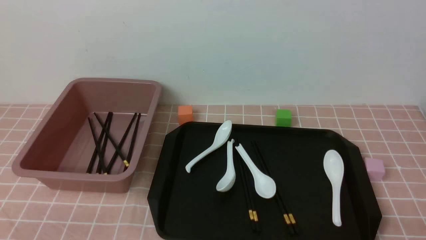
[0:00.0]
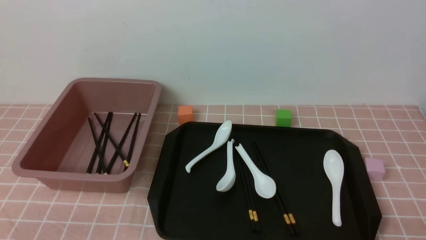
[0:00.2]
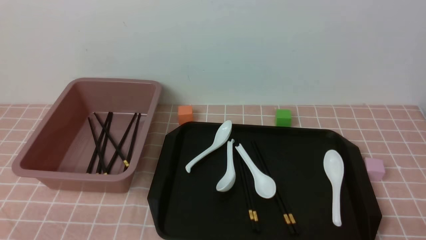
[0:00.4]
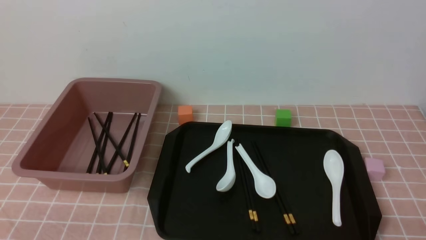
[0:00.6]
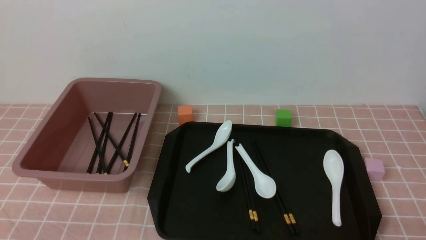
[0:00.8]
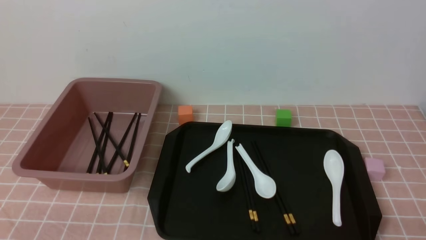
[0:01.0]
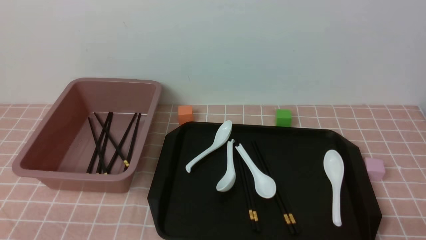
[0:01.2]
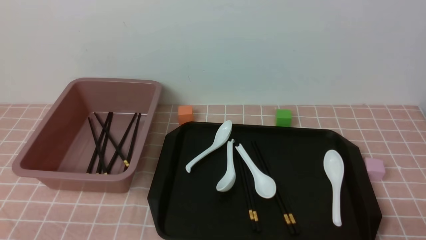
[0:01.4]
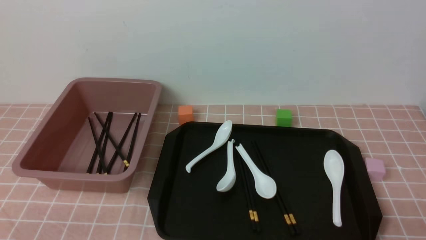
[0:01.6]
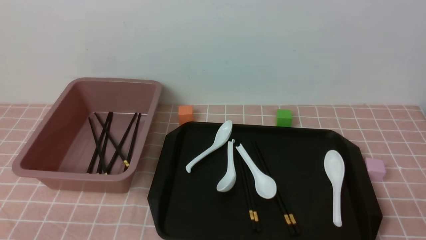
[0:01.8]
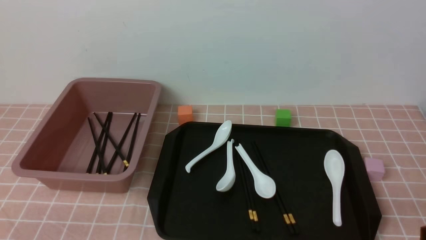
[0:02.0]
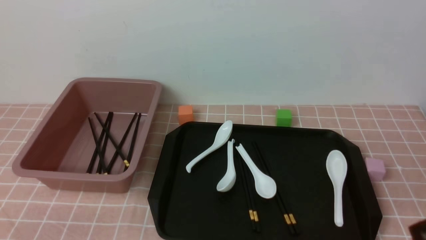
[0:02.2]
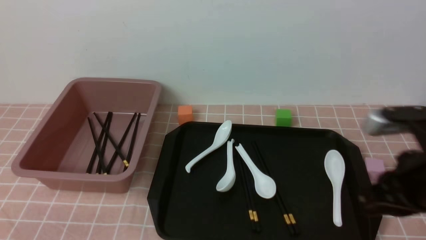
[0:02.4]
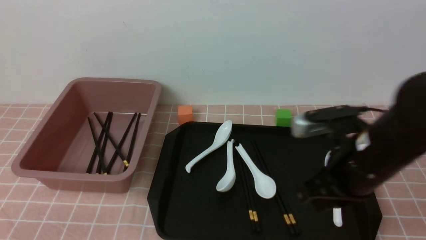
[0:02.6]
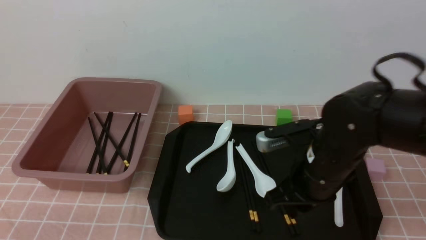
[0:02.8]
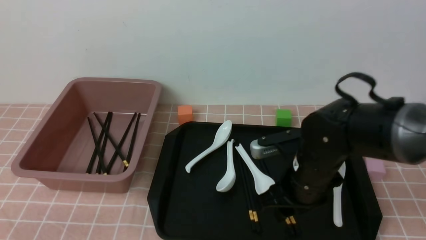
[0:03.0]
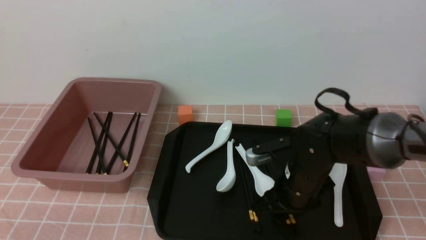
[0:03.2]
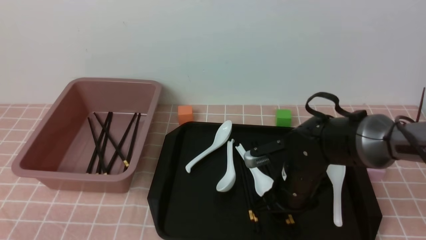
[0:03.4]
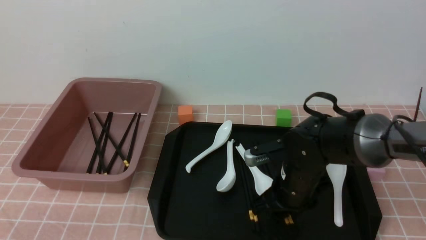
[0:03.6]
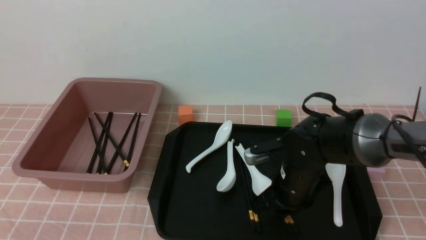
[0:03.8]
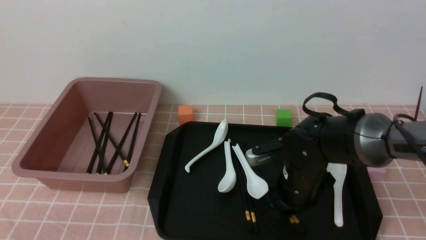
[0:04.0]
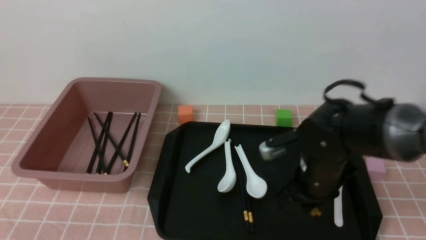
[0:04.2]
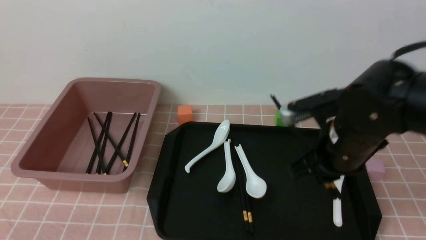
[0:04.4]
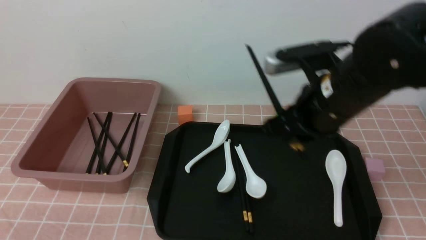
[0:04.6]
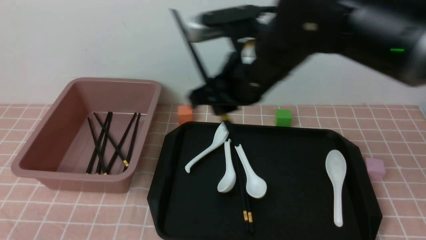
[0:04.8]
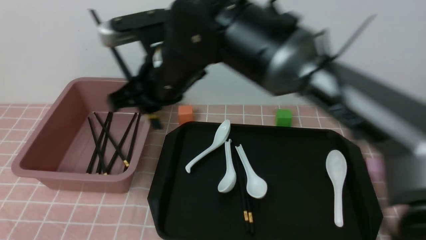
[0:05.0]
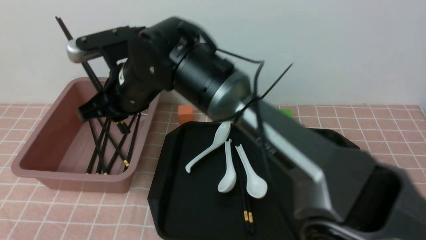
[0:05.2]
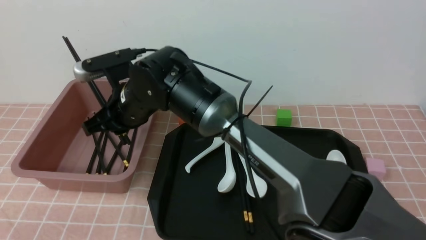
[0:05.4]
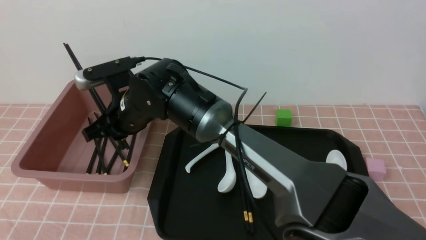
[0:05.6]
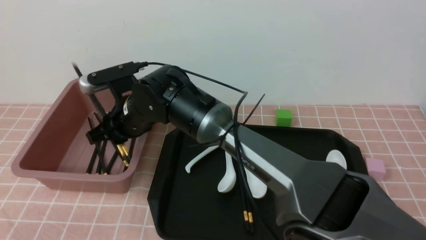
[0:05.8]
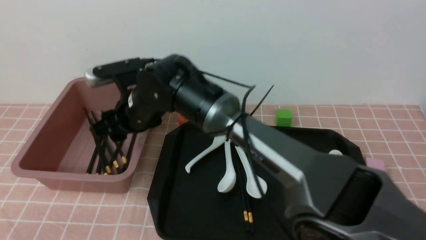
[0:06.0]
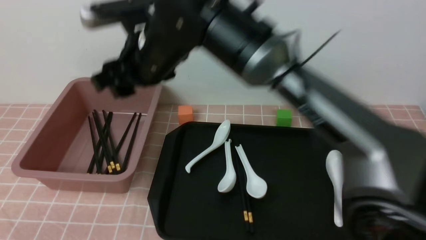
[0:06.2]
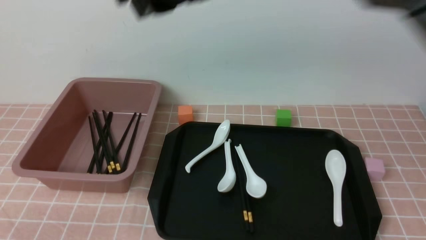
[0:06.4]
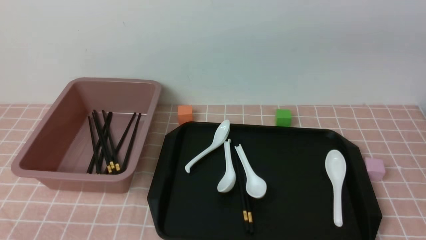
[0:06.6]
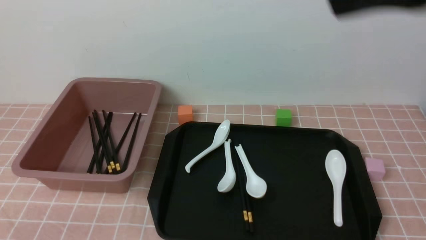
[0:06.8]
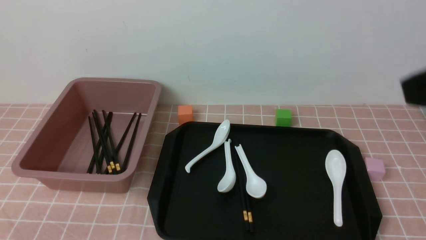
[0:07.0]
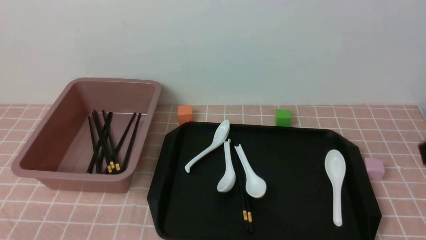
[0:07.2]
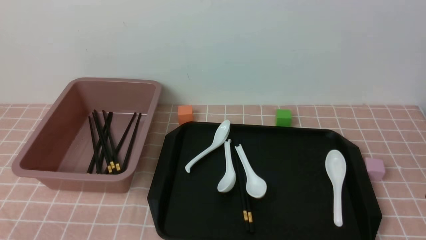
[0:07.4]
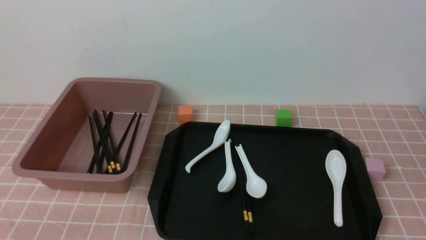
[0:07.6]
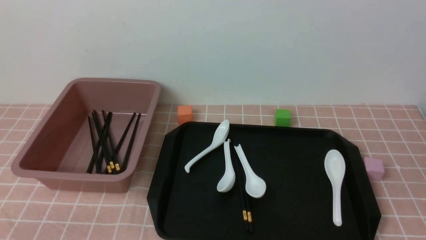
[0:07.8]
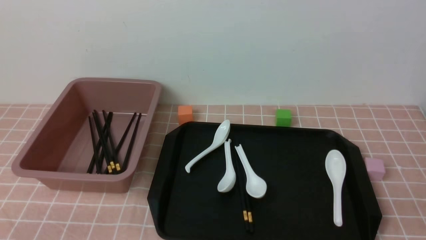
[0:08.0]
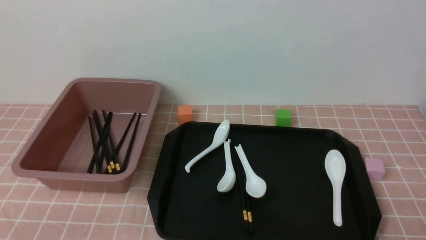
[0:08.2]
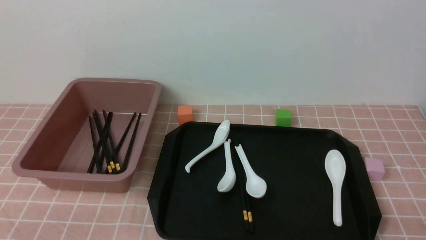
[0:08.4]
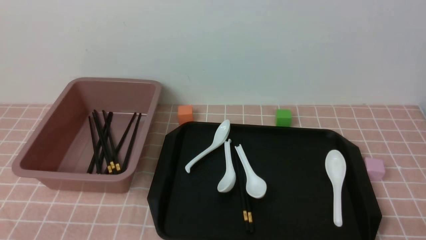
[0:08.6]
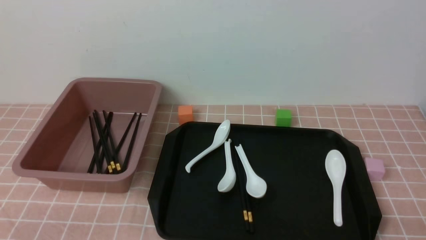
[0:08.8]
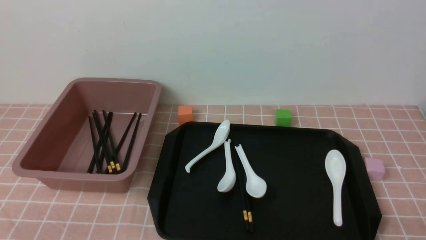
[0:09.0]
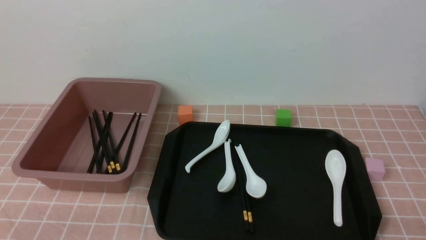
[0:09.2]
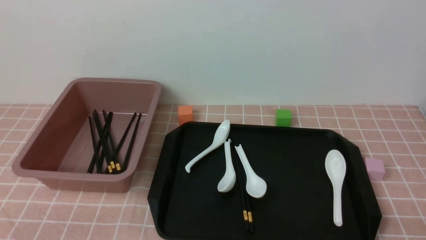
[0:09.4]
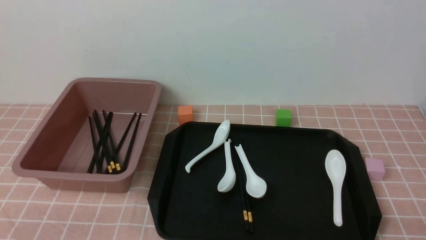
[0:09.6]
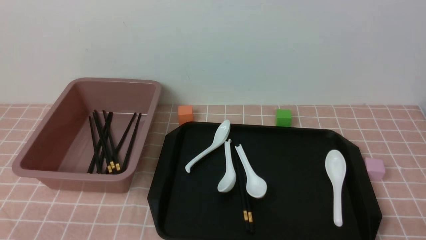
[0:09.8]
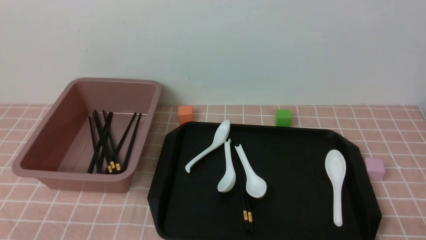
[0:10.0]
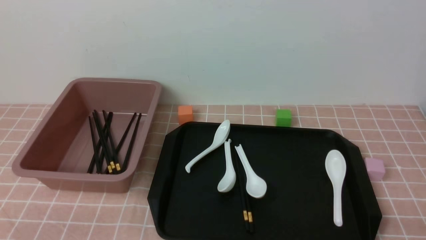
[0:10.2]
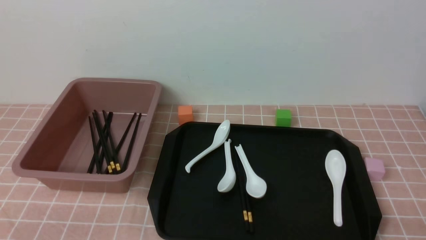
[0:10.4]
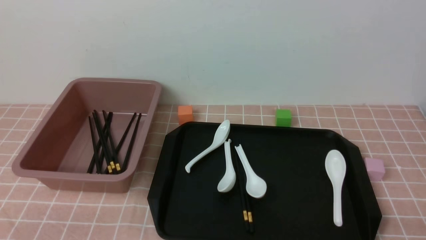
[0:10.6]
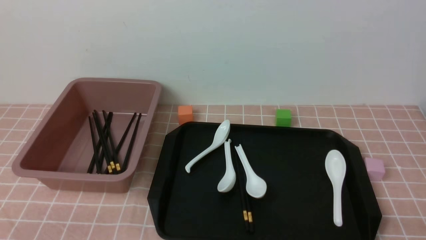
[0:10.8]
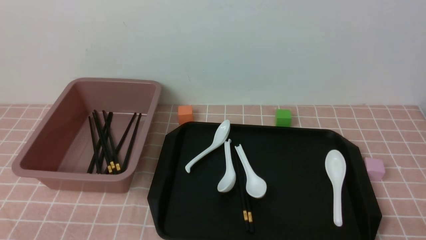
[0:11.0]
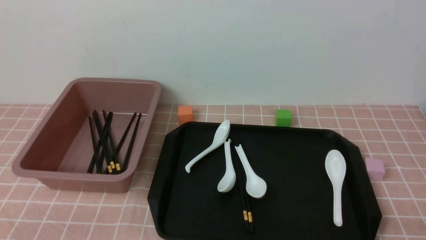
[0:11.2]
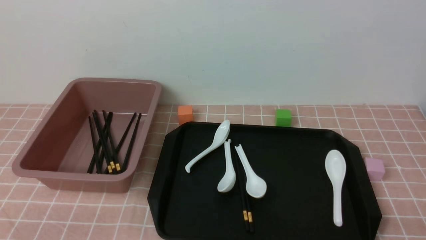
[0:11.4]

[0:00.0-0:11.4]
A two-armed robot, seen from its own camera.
Step, 0:00.0 to 0:04.2: use the right arm to grab a pair of chopsticks.
Step, 0:04.6 to 0:06.2: use the right arm to put the chopsticks into the lunch box.
0:01.4 to 0:02.8: The right gripper shifts about 25 cm forward and to the left.
0:02.8 to 0:04.2: The right gripper moves approximately 10 cm downward and comes back, and opens, then closes once more.
0:04.2 to 0:05.6: The right gripper shifts about 25 cm to the left.
0:05.6 to 0:07.2: The right gripper moves to the right, backward and upward, approximately 50 cm, and closes its fingers.
0:08.6 to 0:11.4: The two grippers keep their place.

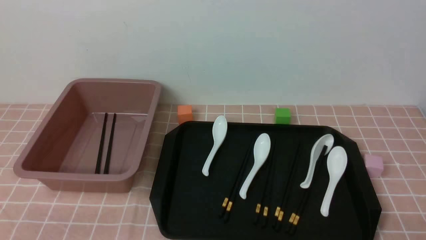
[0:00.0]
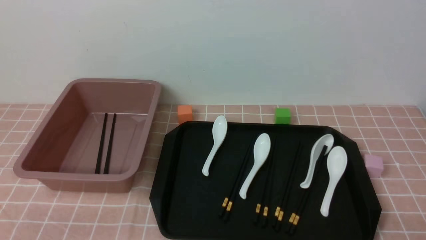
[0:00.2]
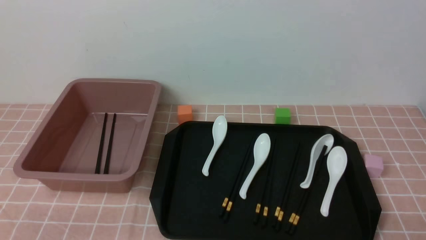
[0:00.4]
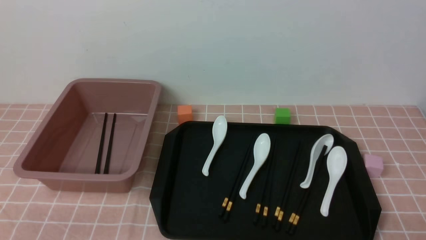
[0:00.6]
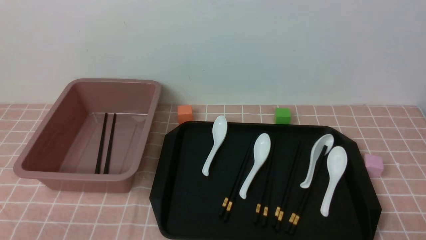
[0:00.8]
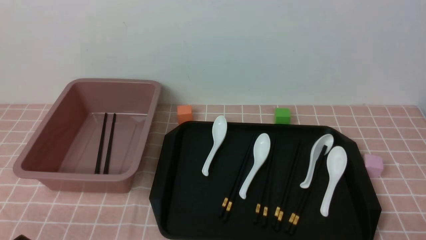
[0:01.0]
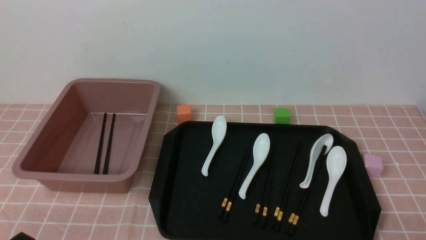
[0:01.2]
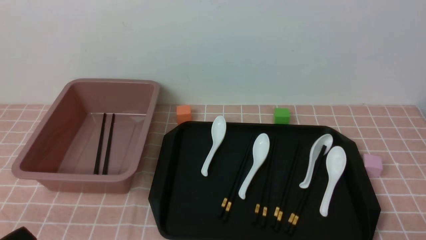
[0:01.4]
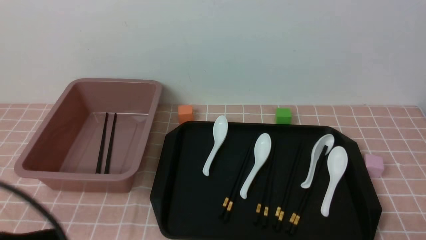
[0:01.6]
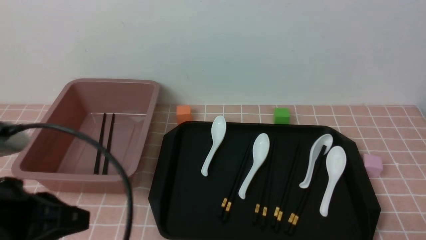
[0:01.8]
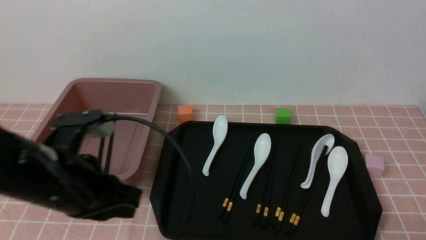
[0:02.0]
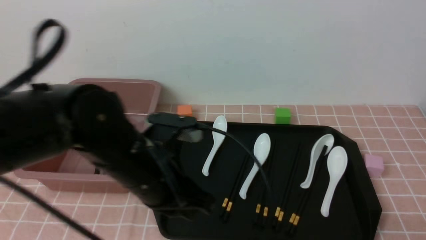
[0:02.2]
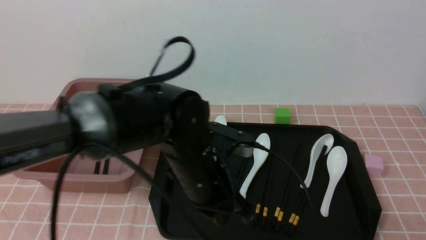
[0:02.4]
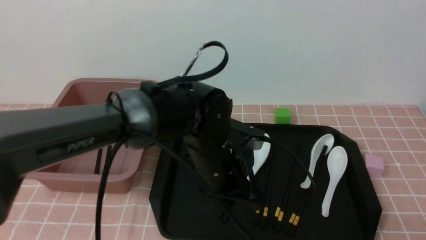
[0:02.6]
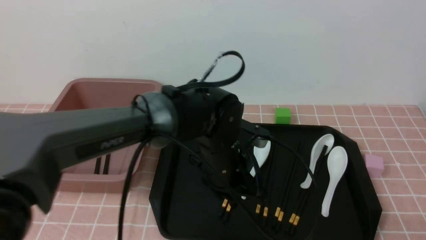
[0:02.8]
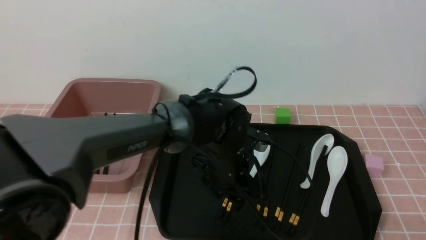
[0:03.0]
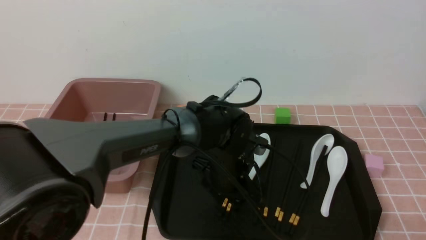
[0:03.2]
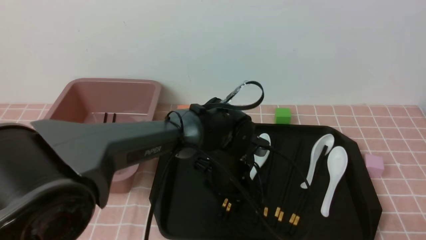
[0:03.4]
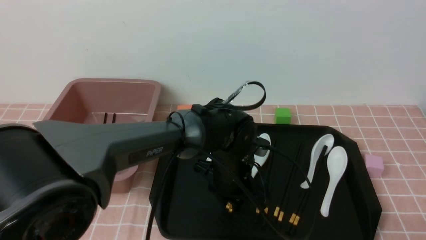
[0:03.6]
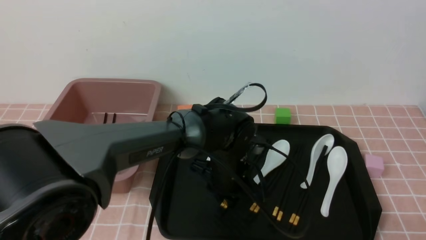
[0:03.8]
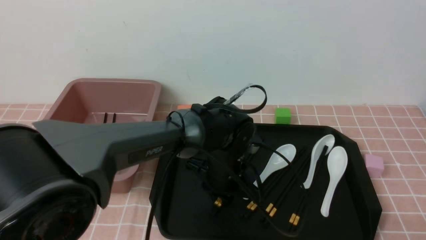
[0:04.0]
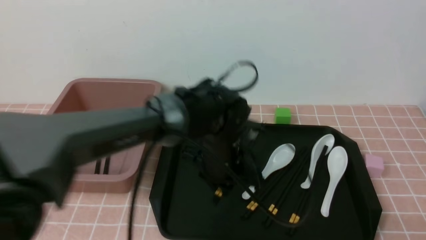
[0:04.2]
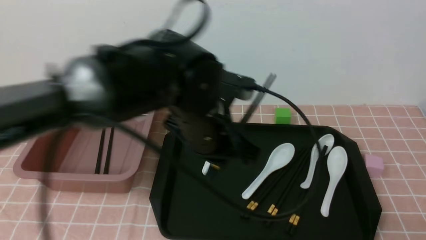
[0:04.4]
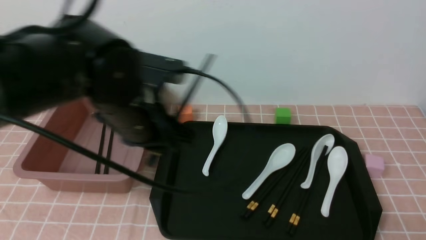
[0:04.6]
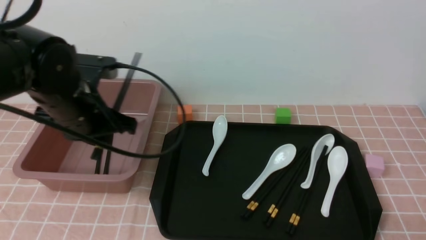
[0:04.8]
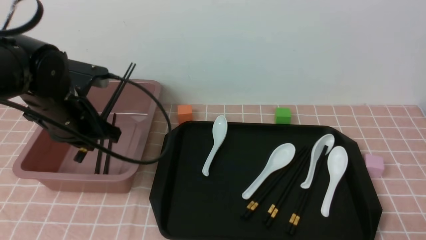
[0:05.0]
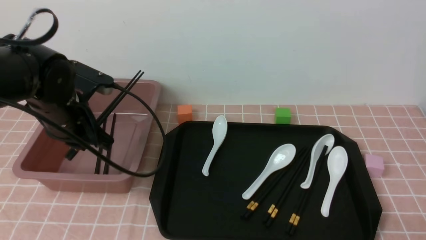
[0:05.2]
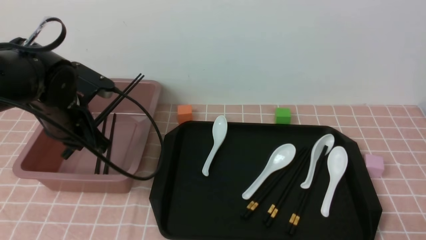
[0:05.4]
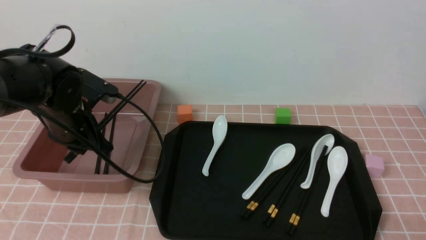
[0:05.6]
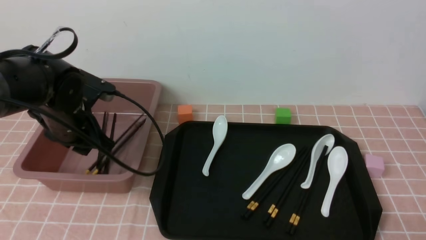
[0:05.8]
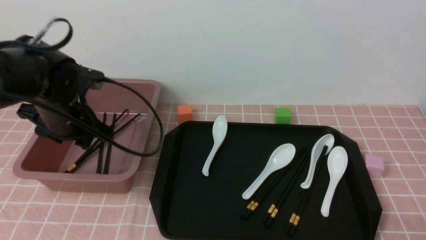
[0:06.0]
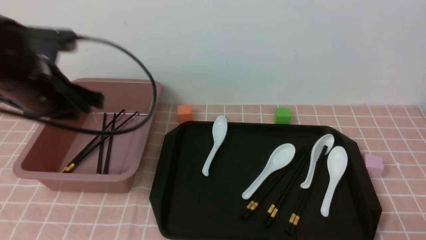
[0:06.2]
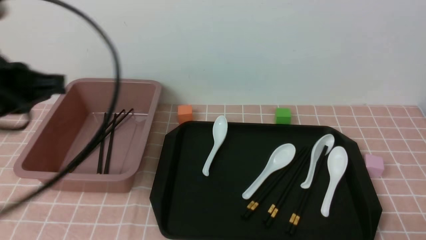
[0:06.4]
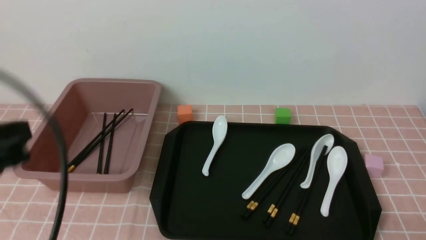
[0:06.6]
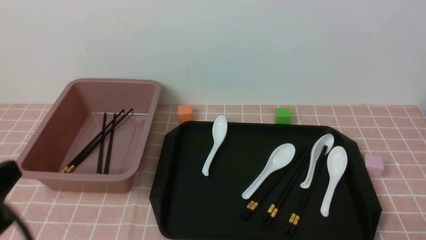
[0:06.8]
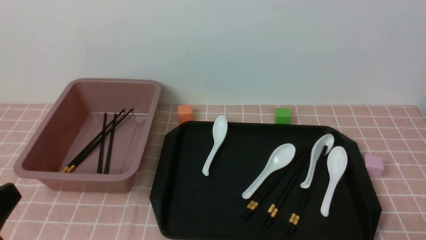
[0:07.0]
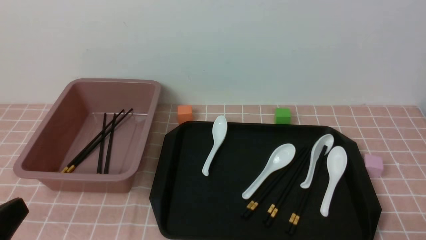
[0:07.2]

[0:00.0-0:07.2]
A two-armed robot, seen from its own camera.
Step, 0:00.0 to 0:04.4: use the left arm to grab a pair of chopsticks.
Step, 0:04.6 to 0:06.2: use the left arm to put the chopsticks into the lunch box.
0:00.0 to 0:01.4: The left gripper goes roughly 10 cm upward.
0:01.4 to 0:02.8: The left gripper shifts about 35 cm forward and to the right, and opens its fingers.
0:02.8 to 0:04.4: The left gripper heads upward and to the left, covering some 10 cm.
0:04.4 to 0:05.8: The left gripper is displaced to the left by approximately 20 cm, and opens up.
0:05.8 to 0:07.2: The left gripper shifts roughly 30 cm backward, and closes up.
